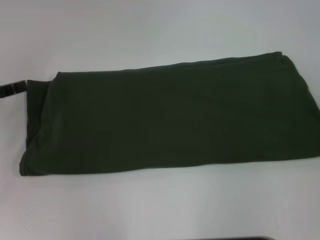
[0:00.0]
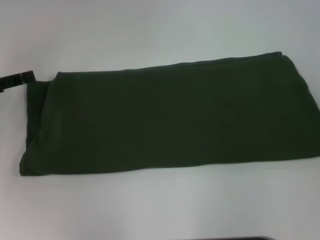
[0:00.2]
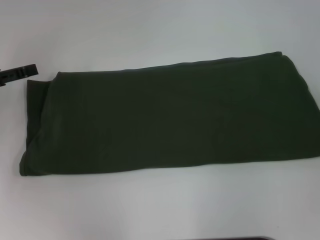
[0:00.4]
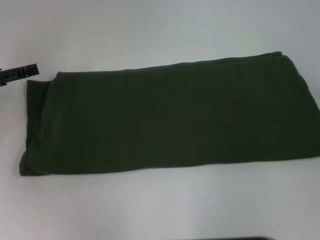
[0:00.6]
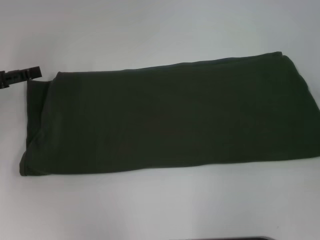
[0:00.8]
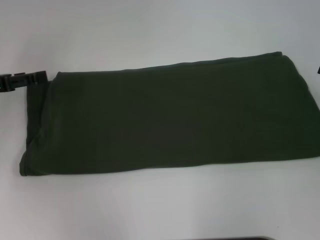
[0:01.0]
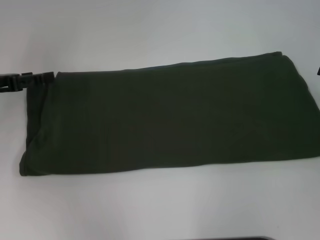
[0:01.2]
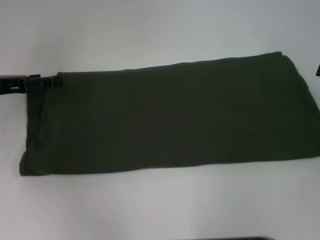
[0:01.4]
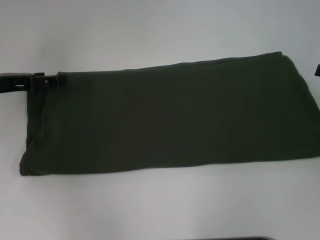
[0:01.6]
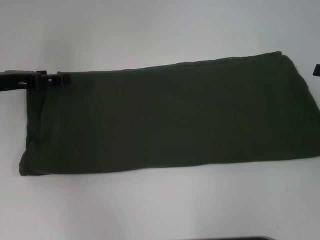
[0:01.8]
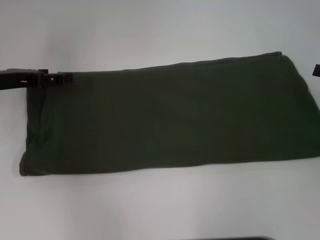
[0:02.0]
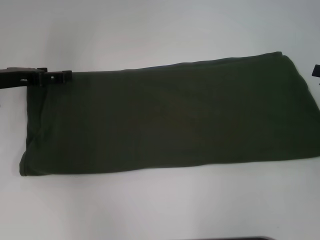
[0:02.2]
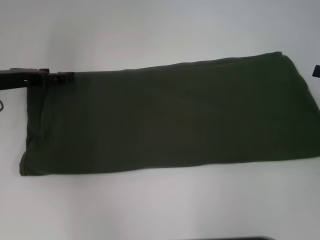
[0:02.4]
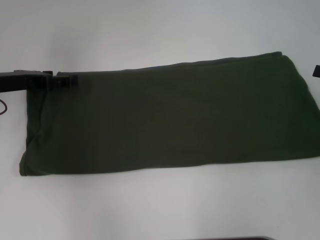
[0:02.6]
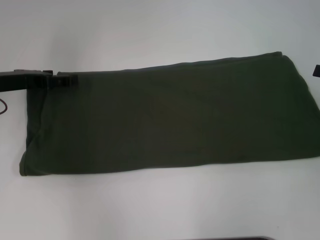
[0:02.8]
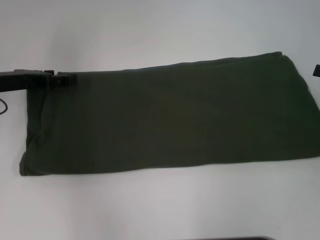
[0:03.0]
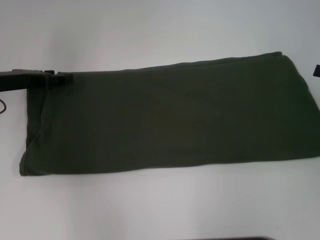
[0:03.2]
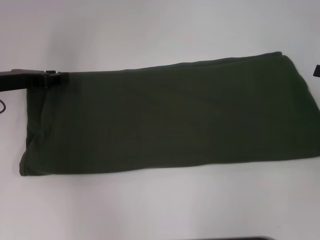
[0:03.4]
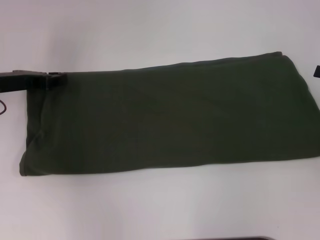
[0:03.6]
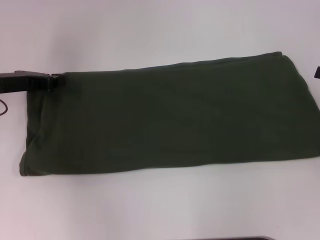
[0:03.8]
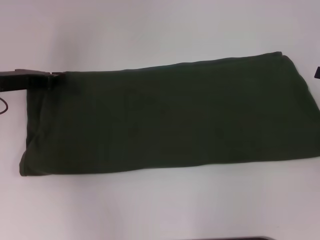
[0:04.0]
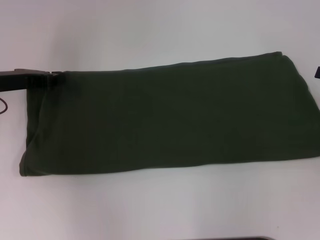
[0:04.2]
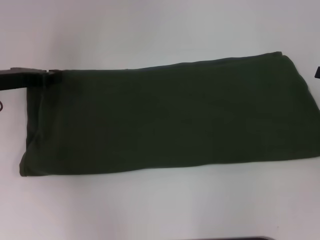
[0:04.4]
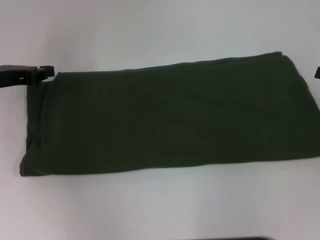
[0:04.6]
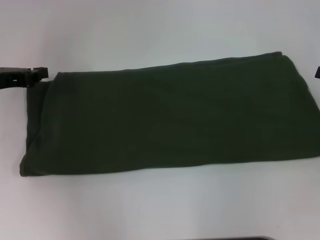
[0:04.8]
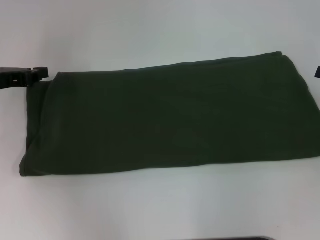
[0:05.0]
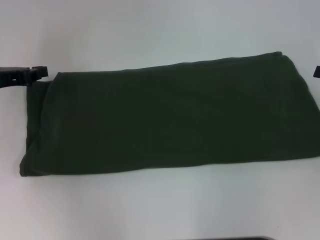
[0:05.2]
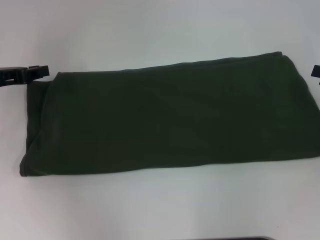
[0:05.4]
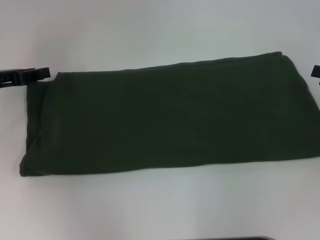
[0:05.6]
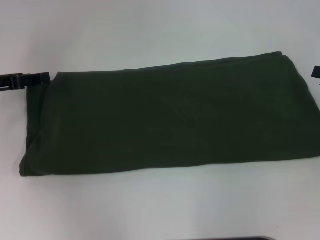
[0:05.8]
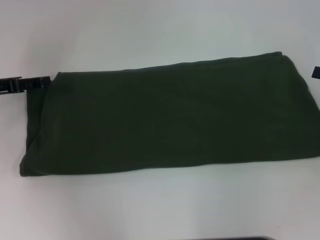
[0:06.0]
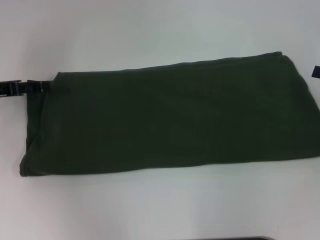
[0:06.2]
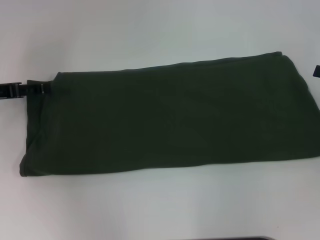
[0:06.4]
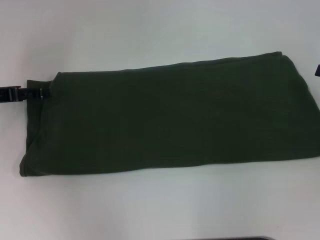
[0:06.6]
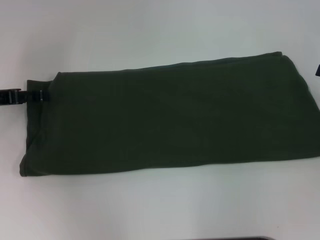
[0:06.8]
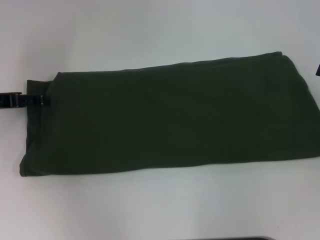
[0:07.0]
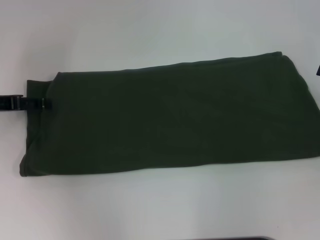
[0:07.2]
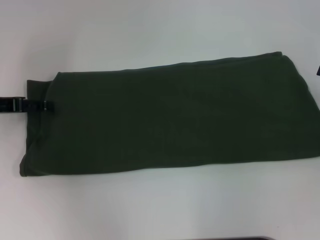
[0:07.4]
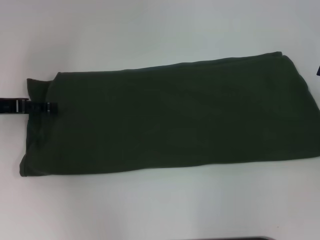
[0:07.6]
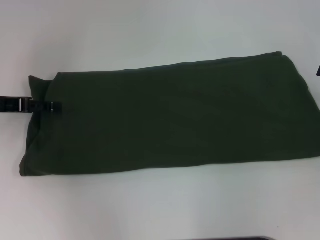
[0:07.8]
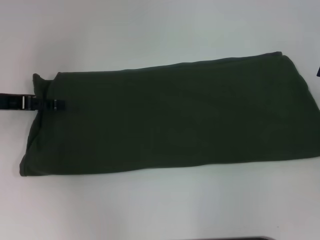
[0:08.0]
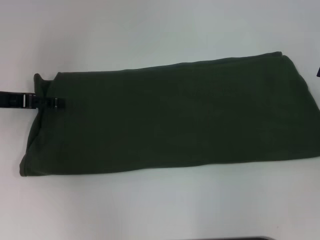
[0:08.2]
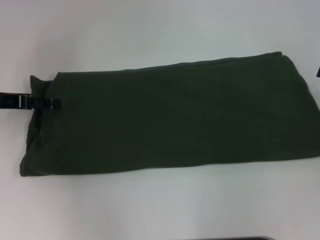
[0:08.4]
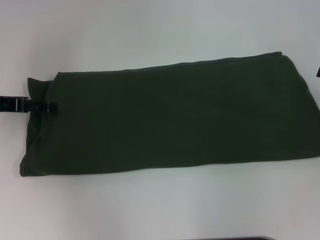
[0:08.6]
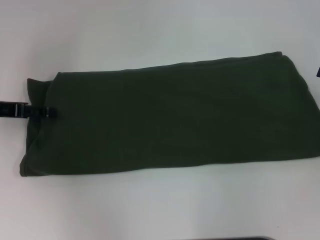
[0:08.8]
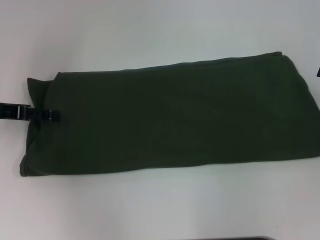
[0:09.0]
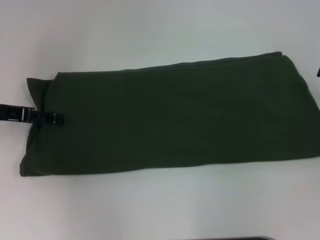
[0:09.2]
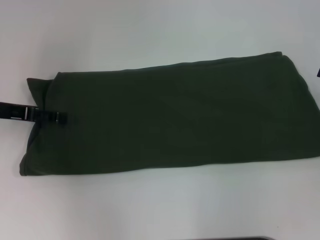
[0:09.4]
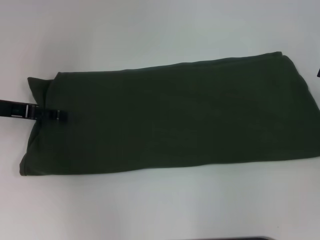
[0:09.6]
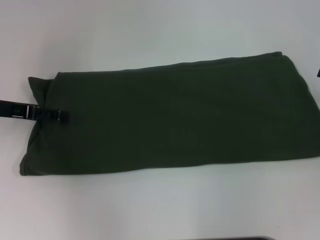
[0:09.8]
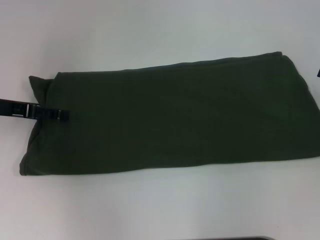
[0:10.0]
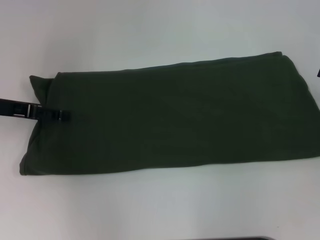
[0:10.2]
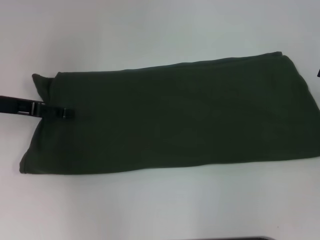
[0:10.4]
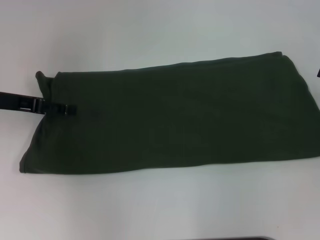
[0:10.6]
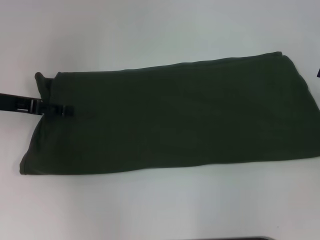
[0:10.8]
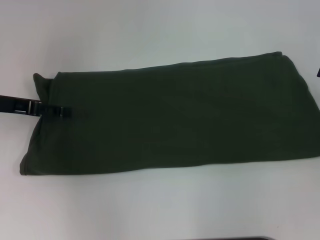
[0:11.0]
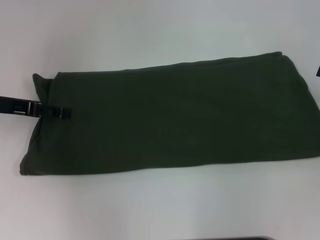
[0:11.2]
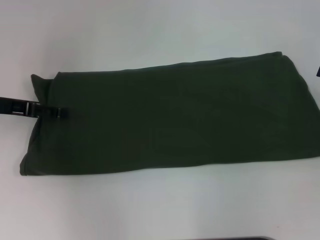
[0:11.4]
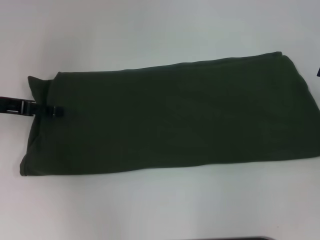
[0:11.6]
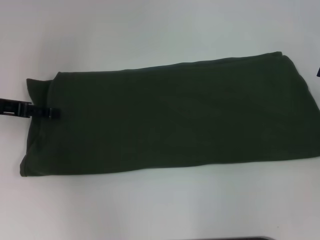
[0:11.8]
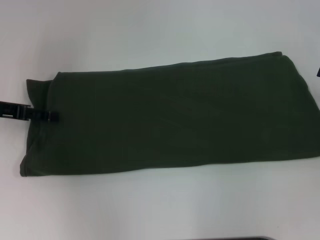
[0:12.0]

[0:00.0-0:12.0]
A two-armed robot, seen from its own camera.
0:00.0 to 0:01.6: The left gripper goes roughly 10 cm forward and to the right.
0:03.0 to 0:04.4: The left gripper closes its fingers.
0:04.4 to 0:06.0: The left gripper opens.
0:06.0 to 0:07.6: There are only small adjustments of the grippers.
0:09.0 to 0:12.0: The grippers stay close to where they were, moving slightly.

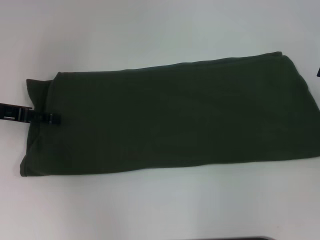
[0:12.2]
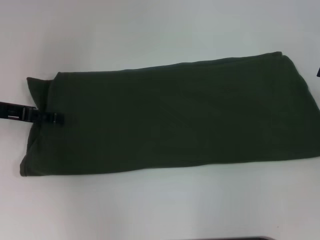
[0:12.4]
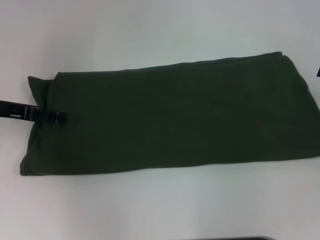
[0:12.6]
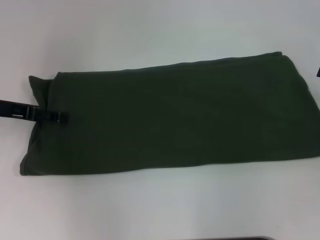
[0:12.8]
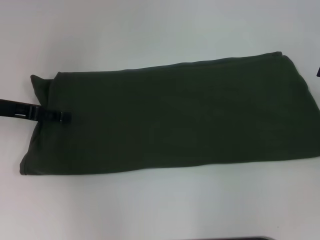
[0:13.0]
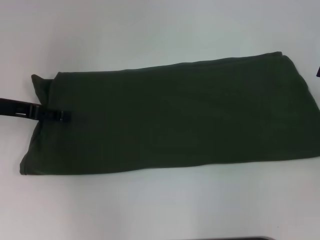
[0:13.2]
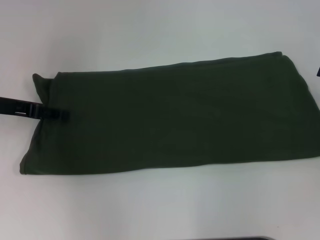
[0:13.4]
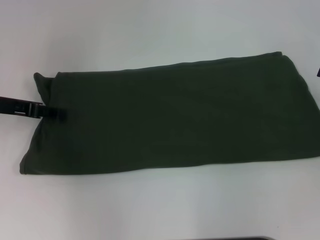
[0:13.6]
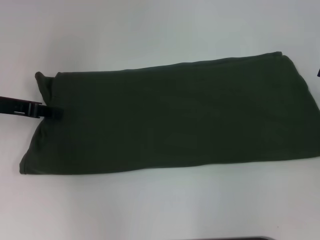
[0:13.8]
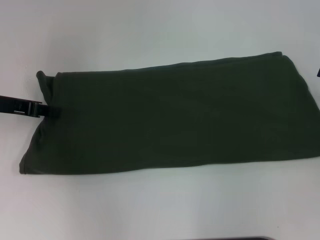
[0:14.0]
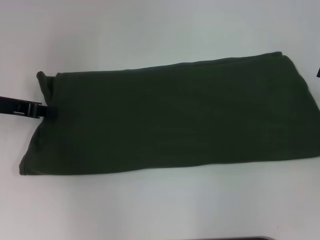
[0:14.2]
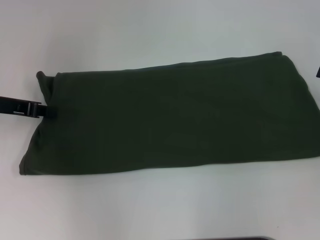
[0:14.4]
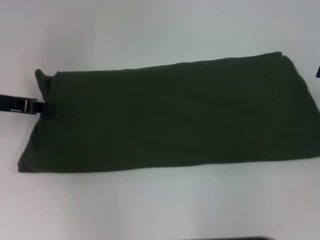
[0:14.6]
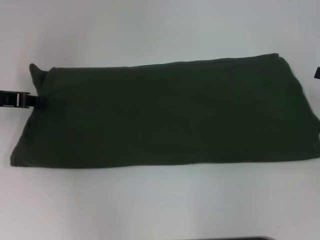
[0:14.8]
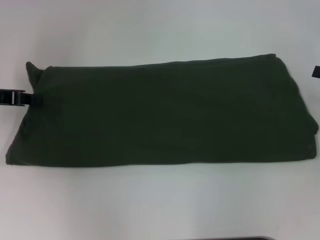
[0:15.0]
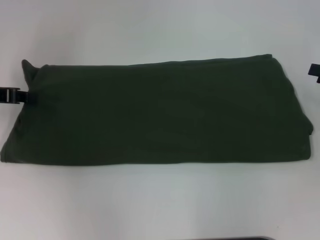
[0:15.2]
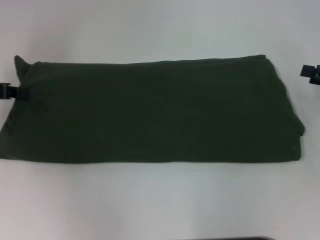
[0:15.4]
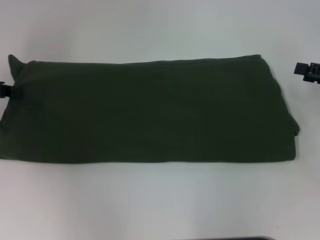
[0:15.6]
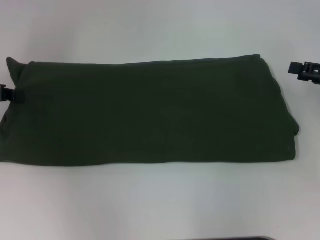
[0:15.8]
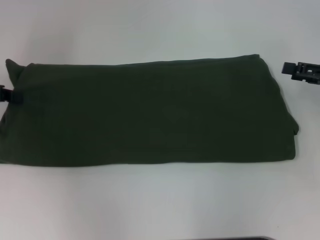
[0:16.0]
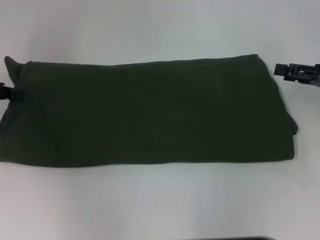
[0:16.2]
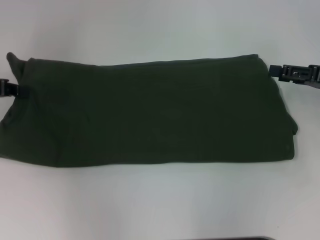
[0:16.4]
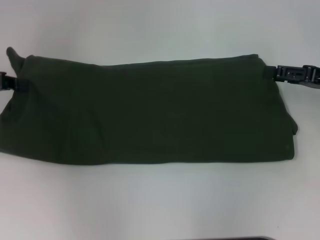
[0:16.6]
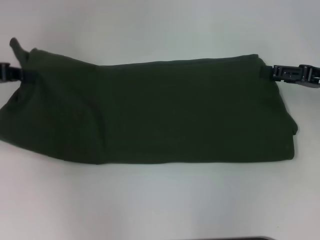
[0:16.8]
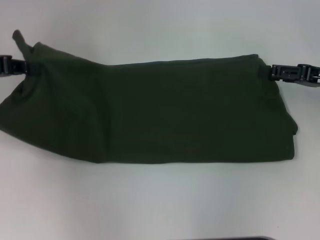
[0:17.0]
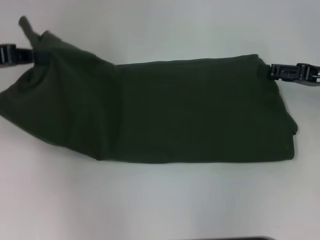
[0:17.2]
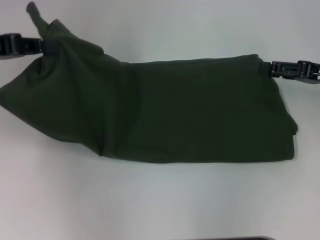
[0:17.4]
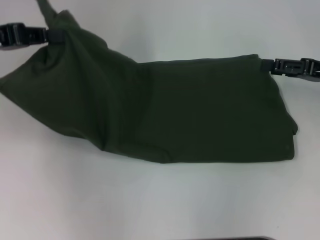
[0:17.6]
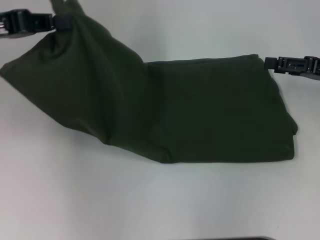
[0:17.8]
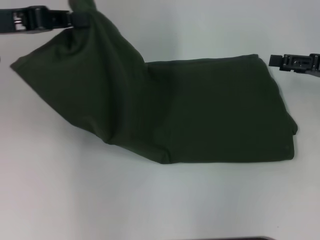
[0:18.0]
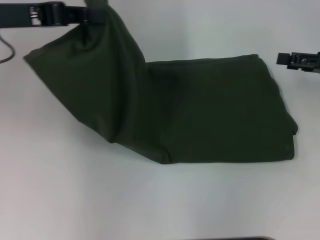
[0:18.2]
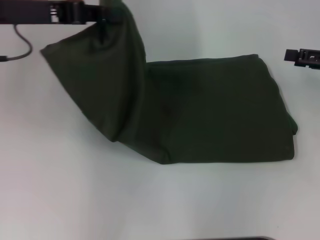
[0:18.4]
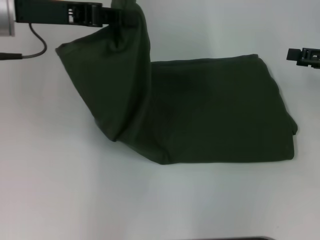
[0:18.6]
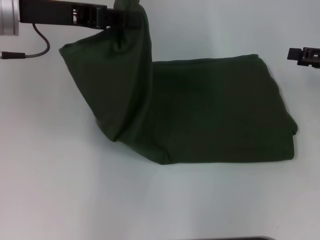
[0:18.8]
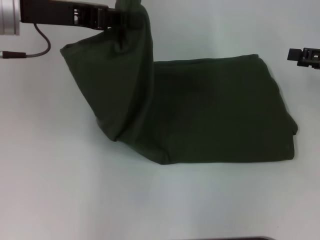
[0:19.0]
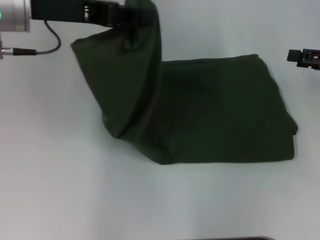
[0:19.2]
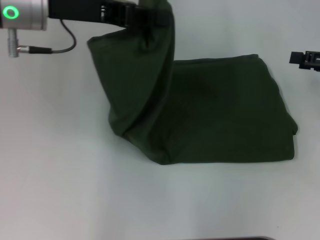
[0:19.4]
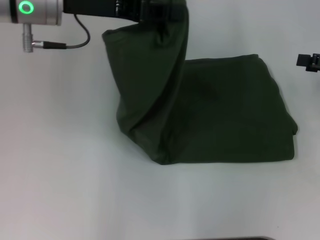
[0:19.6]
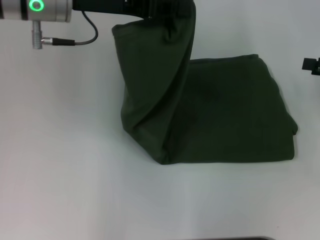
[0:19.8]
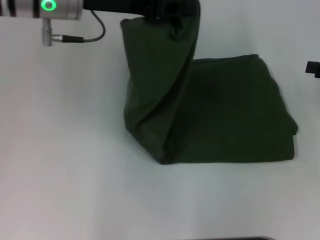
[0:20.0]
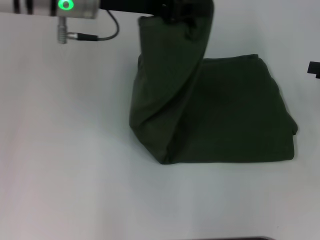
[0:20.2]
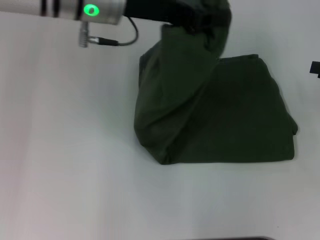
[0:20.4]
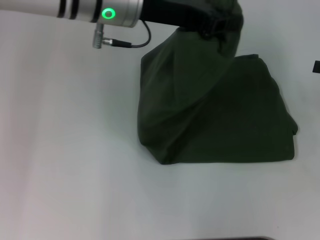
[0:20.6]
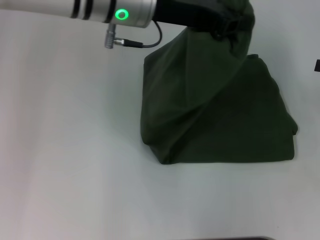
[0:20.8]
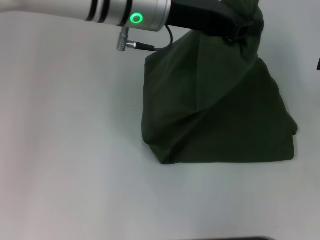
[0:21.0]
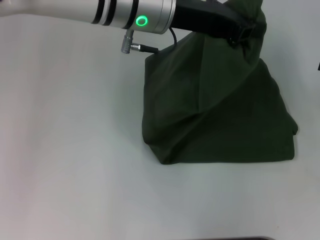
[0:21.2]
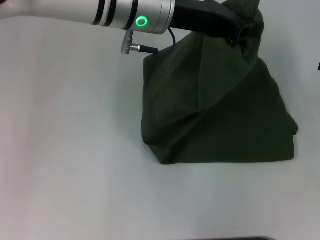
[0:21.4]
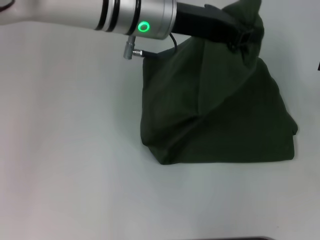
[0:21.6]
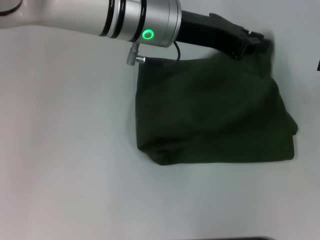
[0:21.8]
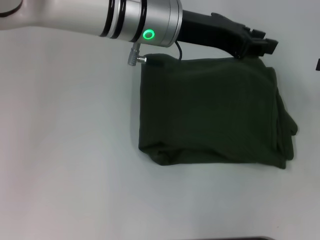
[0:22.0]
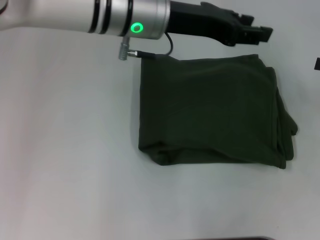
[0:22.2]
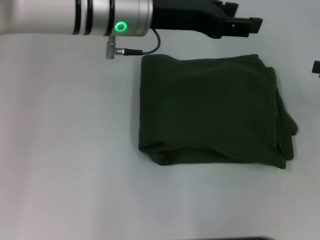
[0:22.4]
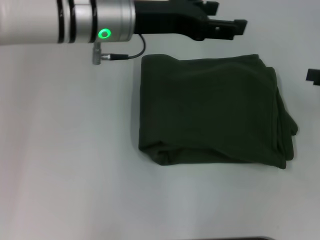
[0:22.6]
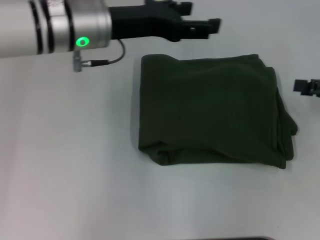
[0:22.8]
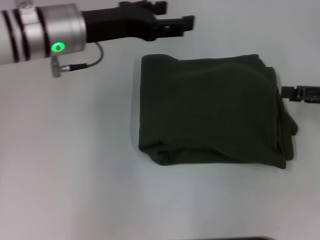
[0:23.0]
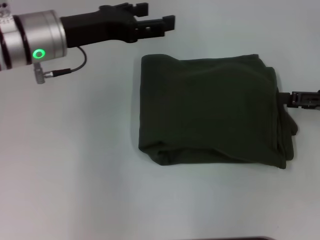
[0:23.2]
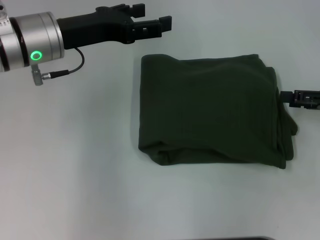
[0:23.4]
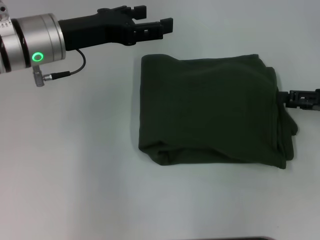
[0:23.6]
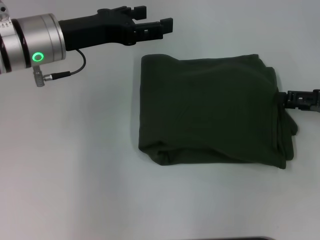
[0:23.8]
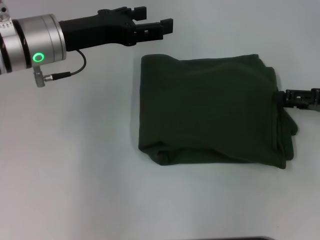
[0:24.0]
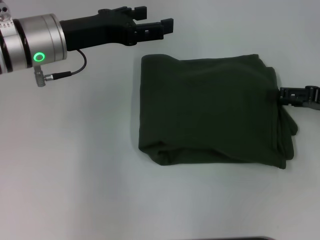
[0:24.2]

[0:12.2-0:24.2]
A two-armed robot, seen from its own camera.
Step, 0:12.2 to 0:22.2: Fold the clothes with your left hand.
0:12.2 to 0:13.8: The left gripper closes its fingers.
0:13.8 to 0:15.2: The left gripper closes up.
0:15.2 to 0:16.6: The right gripper heads to the left, covering some 5 cm.
0:16.6 to 0:18.2: The left gripper is displaced to the right and upward by approximately 10 cm.
0:18.2 to 0:19.8: The left gripper goes about 10 cm to the right.
0:19.8 to 0:21.2: The left gripper shifts roughly 10 cm to the right.
0:21.2 to 0:22.6: The left gripper shifts by about 5 cm, and opens.
0:22.6 to 0:24.2: The left gripper shifts about 10 cm to the left. Meanwhile the right gripper moves about 5 cm.
